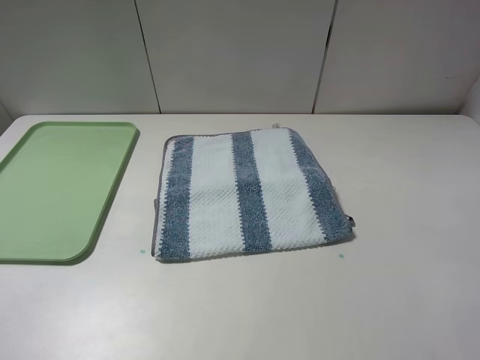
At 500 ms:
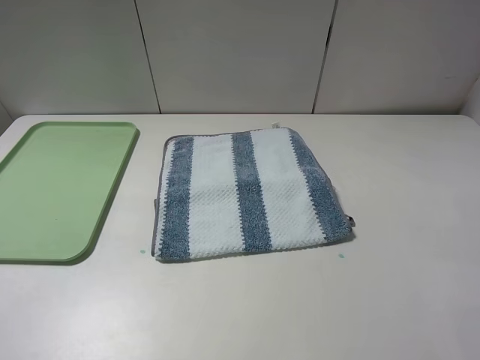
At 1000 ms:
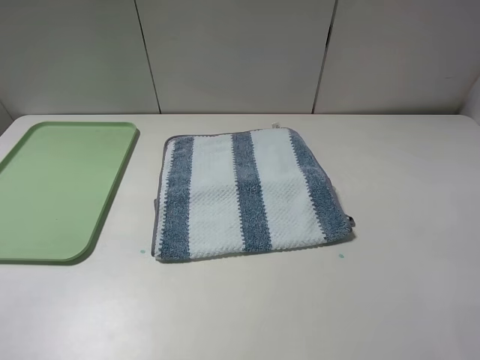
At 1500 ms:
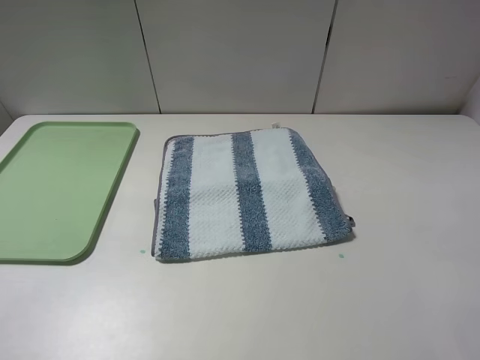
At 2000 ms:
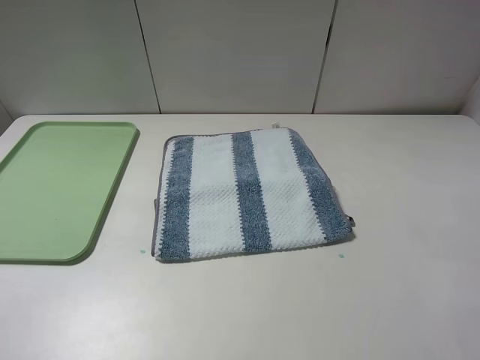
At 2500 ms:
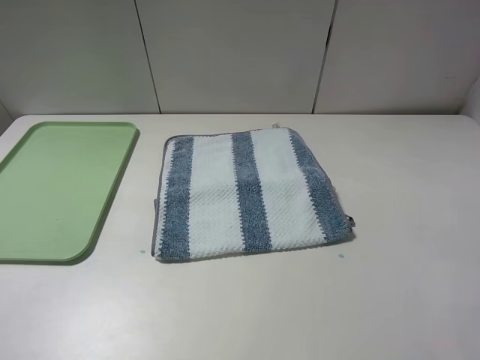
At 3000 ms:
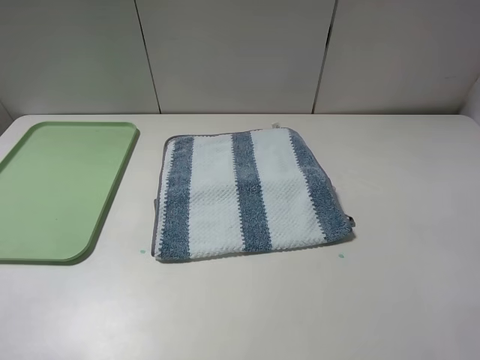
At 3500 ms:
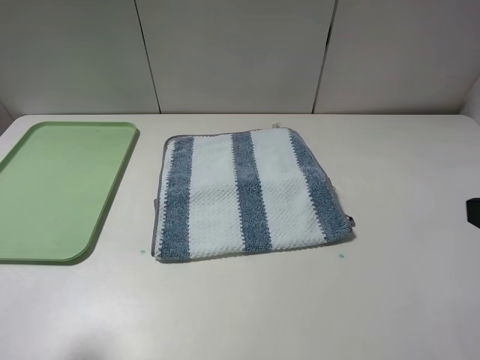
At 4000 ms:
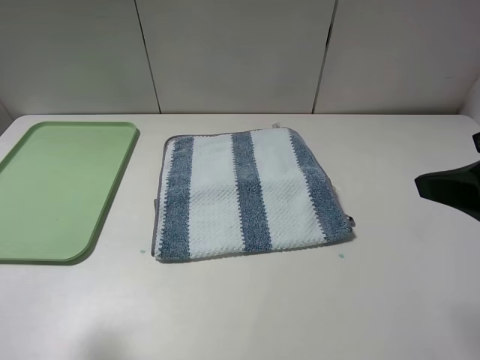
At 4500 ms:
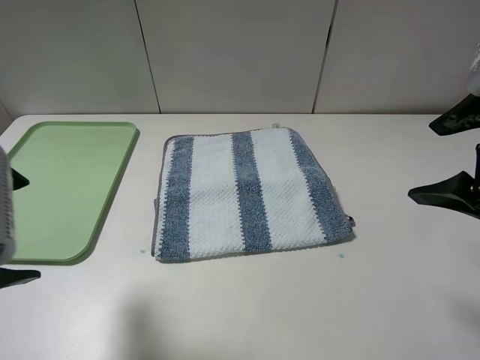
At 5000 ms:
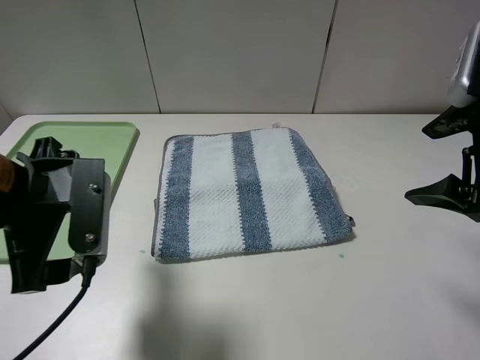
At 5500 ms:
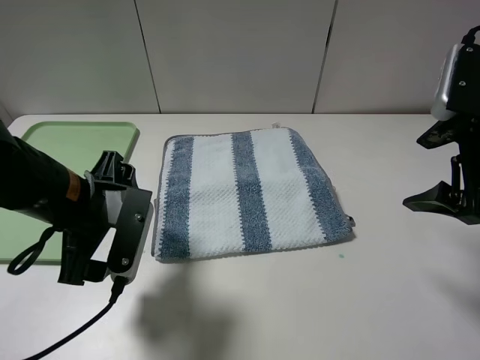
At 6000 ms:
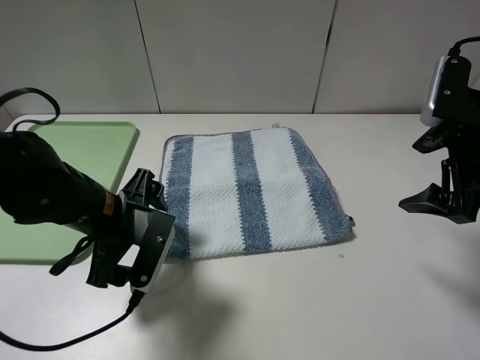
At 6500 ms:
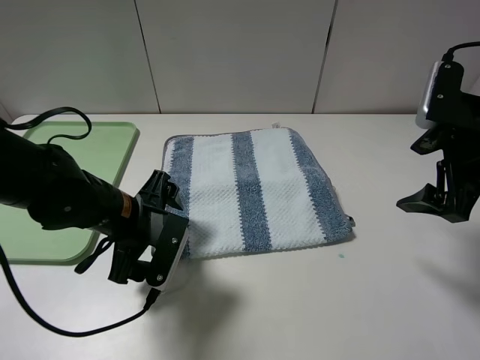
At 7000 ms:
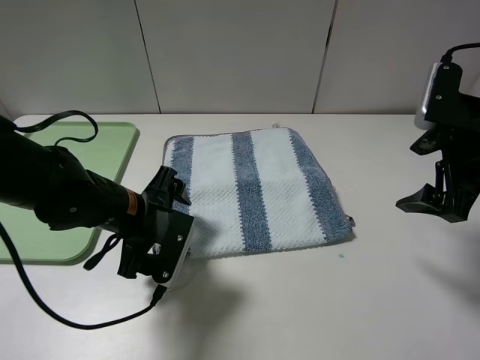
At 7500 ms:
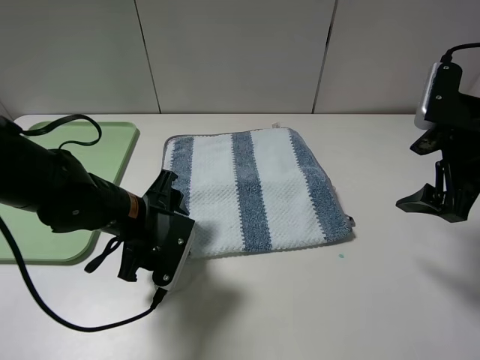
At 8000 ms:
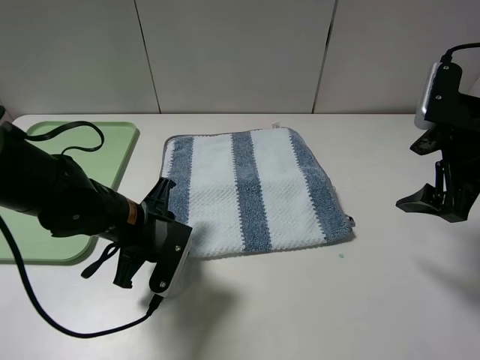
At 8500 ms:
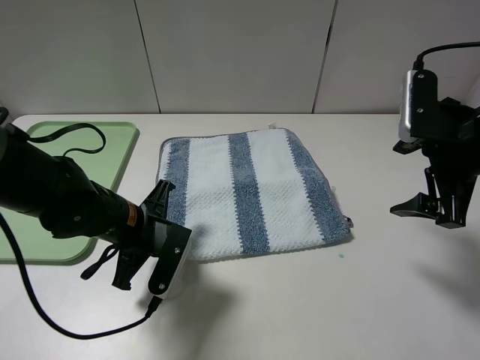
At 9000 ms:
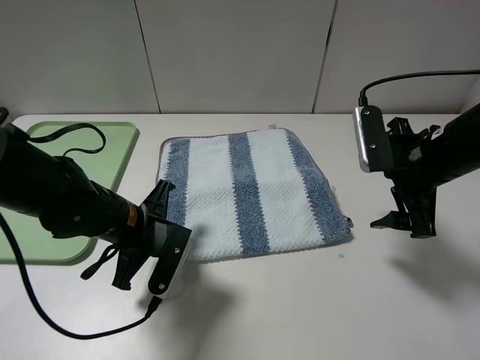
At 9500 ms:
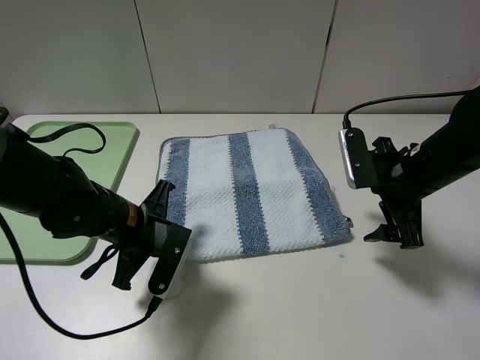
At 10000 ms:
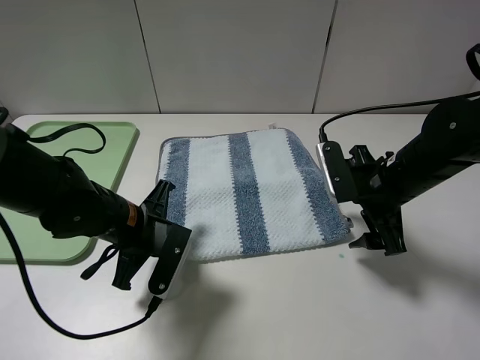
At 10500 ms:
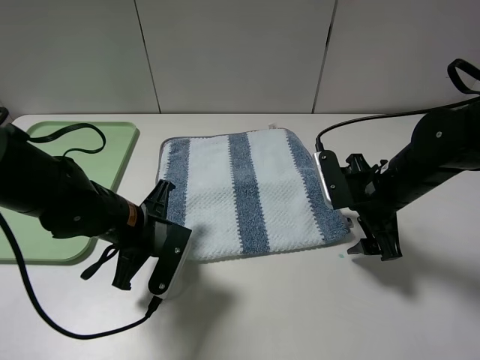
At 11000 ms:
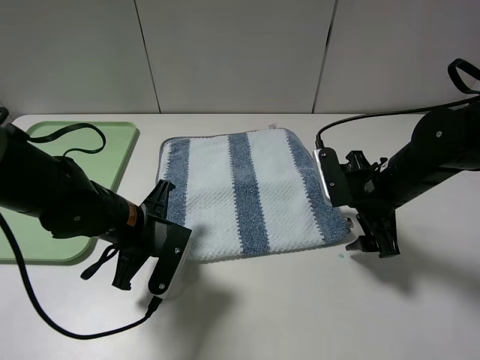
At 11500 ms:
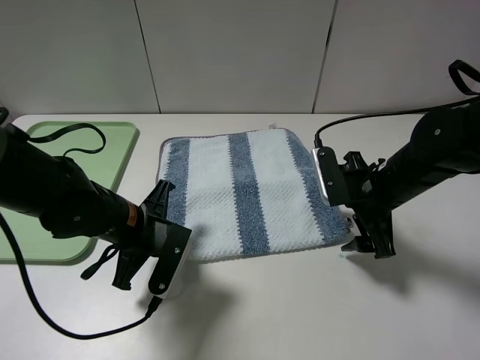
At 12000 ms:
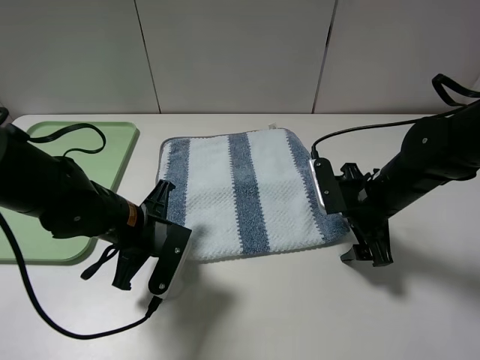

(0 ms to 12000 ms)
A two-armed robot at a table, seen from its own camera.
Step, 0 ms - 9500 ms: Grasp the blue white towel with the left gripper.
0 ms - 2000 ms: Neither gripper changes place.
2000 ms - 4000 ms: The left gripper moves forward, approximately 10 cm, while the right gripper moves forward, roughly 15 cm.
4000 ms - 6000 ms: The left gripper shifts roughly 25 cm downward, forward and to the right. The right gripper heads forward and downward, covering roughly 10 cm.
6000 ms - 8000 ms: The left gripper closes up.
8000 ms - 10000 ms: The right gripper heads downward and to the left, covering roughly 10 cm.
10000 ms - 12000 ms: The grippers move only a little.

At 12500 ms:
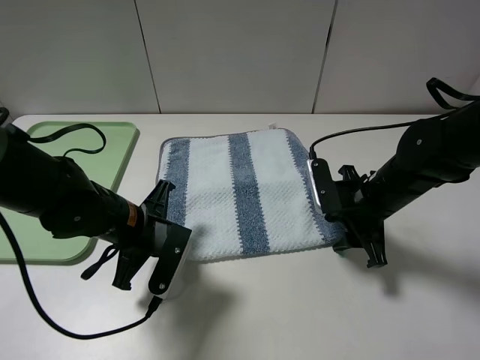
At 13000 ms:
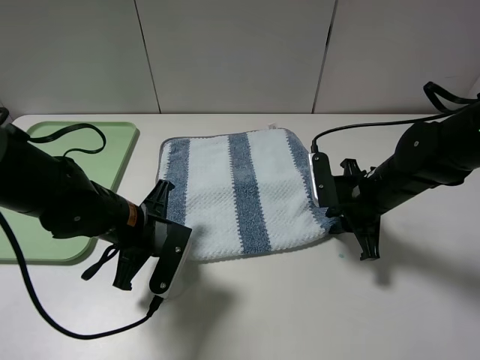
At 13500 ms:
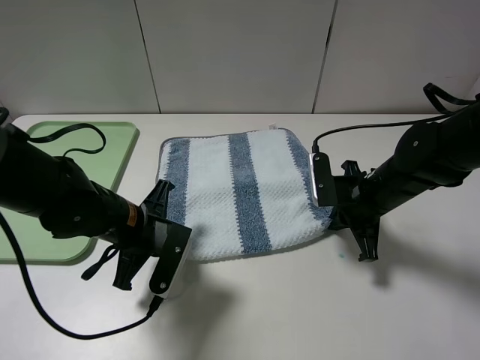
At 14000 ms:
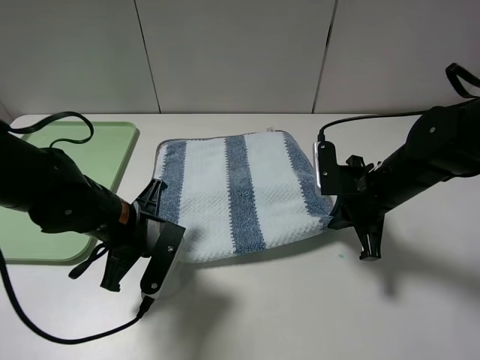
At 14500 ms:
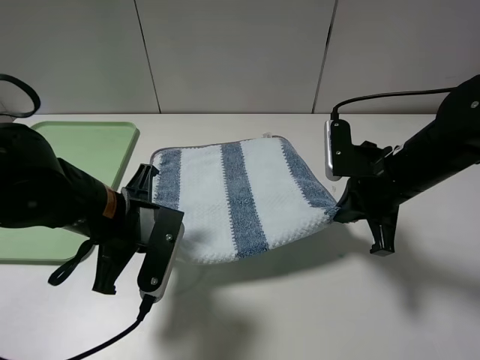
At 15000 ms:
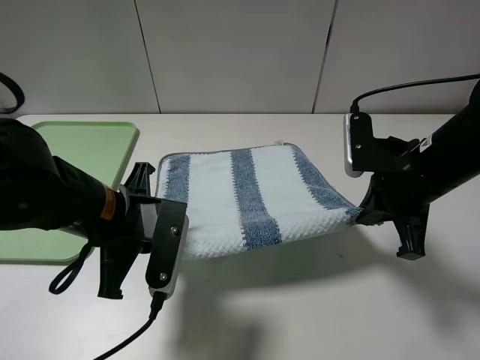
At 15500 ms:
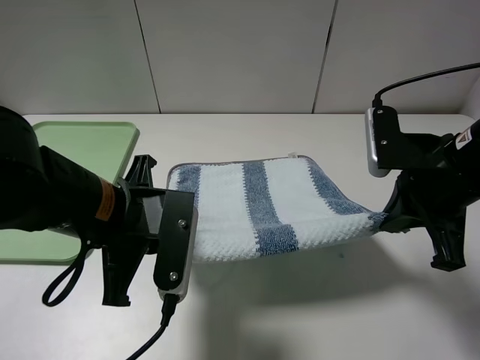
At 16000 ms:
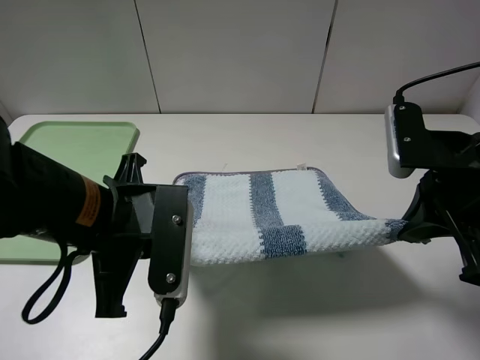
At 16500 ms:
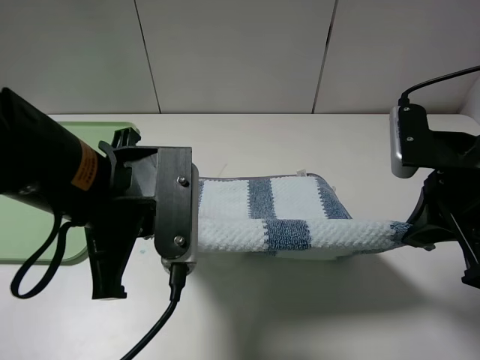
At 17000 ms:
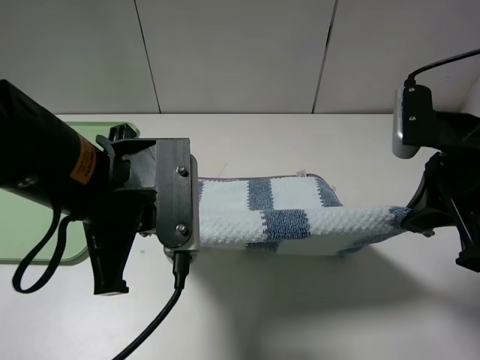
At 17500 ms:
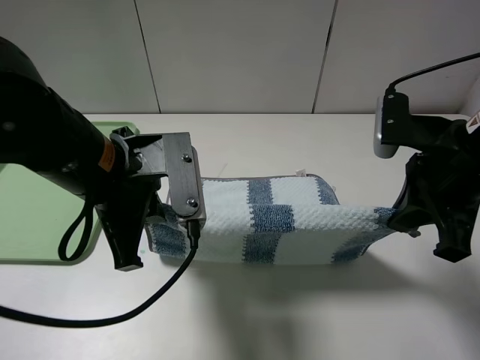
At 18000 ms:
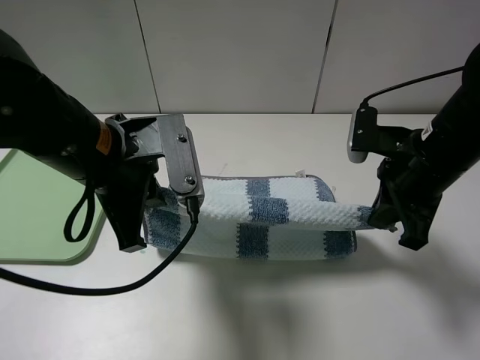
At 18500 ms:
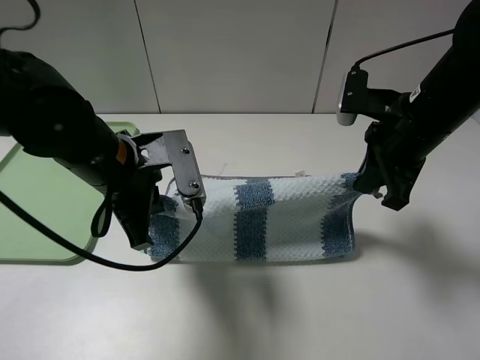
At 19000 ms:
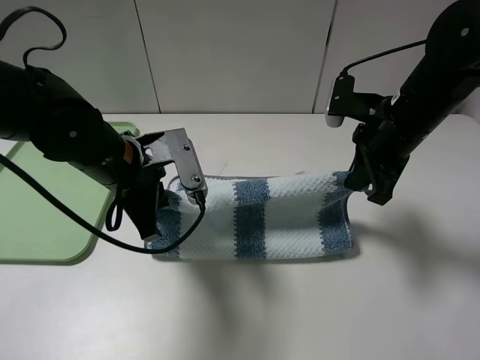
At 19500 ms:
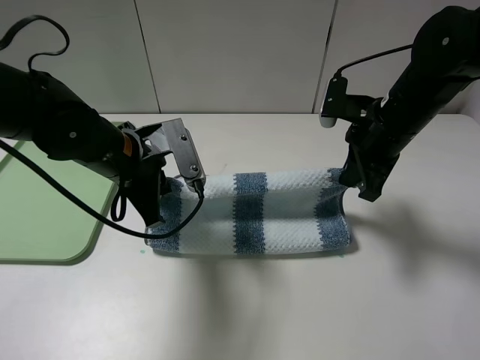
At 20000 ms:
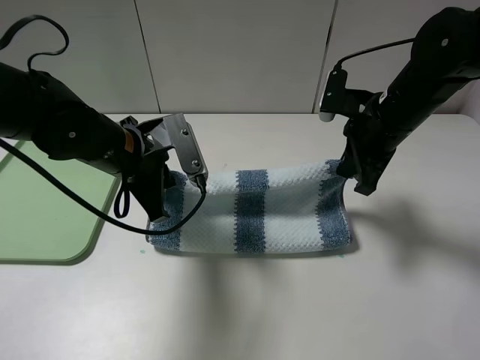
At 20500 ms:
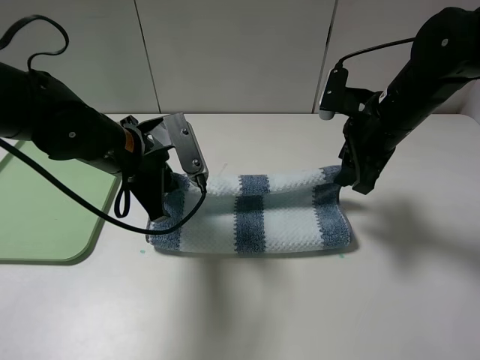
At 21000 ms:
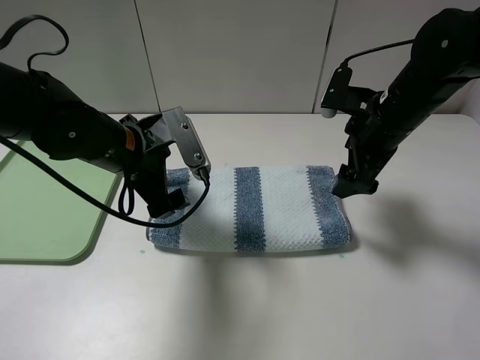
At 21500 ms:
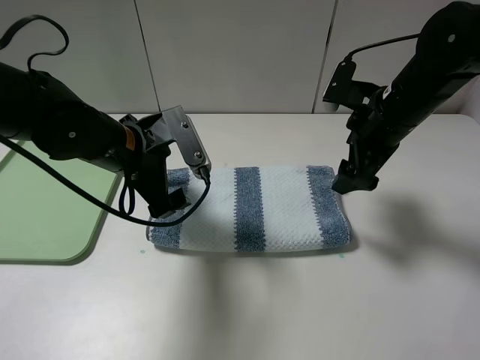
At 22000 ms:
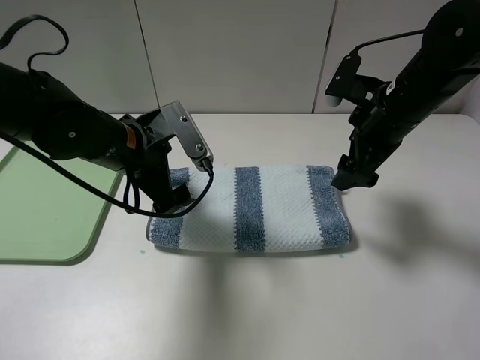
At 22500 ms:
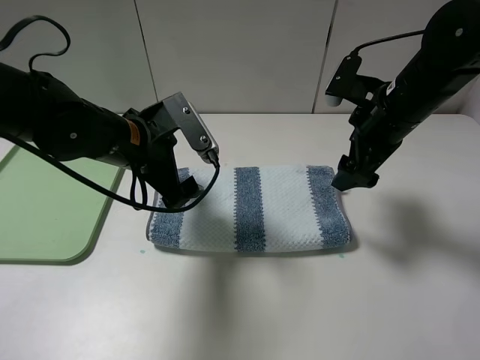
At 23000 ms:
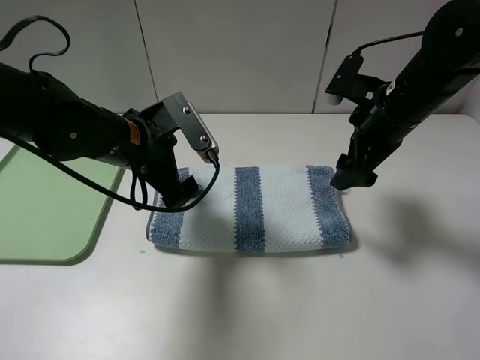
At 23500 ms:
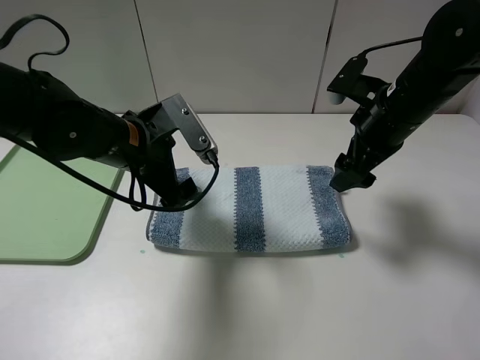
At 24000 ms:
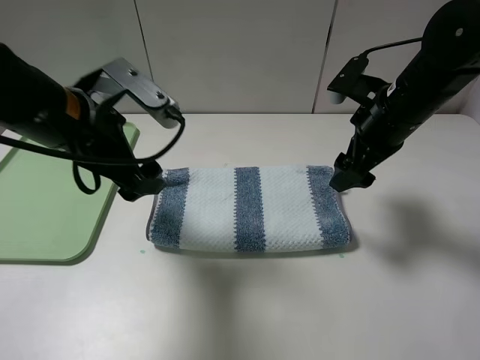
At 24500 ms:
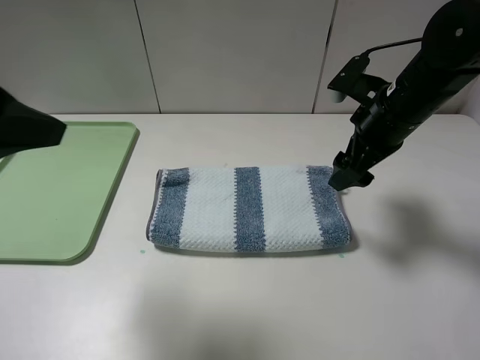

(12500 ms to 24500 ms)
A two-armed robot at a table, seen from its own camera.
Step, 14000 ms - 21000 ms: Fold the blue white towel upwards with the left gripper.
12500 ms - 14500 ms: The two grippers go approximately 5 cm upward. The right gripper closes.
14500 ms - 16500 ms: The right gripper travels upward and backward by some 10 cm; the left gripper heads upward, covering approximately 10 cm.
16500 ms - 18500 ms: The left gripper shifts roughly 10 cm forward and downward; the right gripper moves forward, approximately 10 cm.
18500 ms - 20500 ms: The right gripper opens up, while the left gripper opens.
20500 ms - 22500 ms: The left gripper opens up.
22500 ms - 24500 ms: The left gripper goes roughly 25 cm upward, backward and to the left.

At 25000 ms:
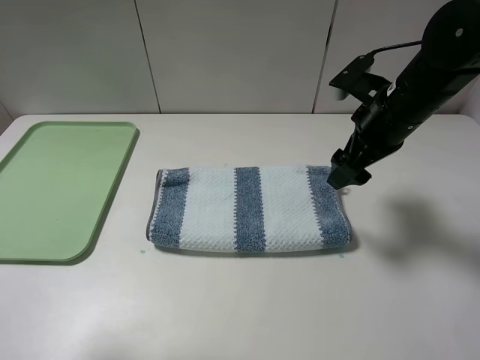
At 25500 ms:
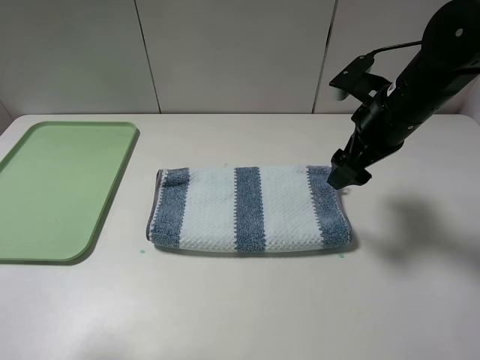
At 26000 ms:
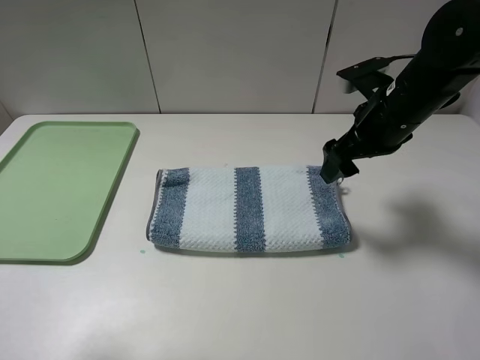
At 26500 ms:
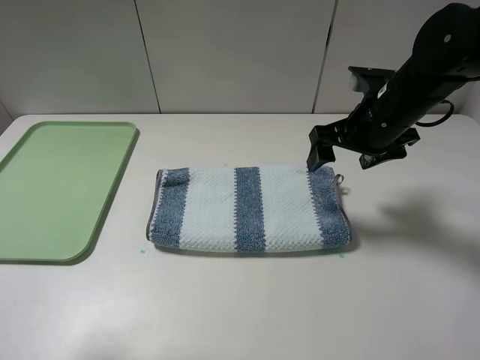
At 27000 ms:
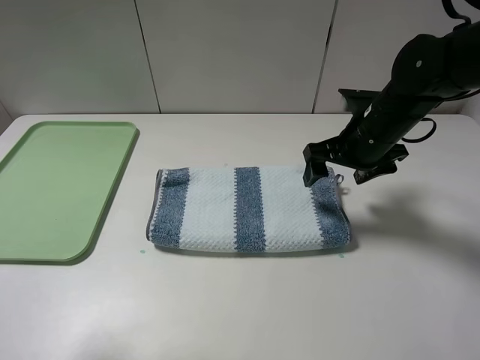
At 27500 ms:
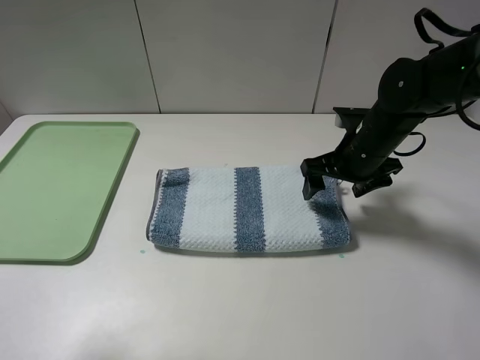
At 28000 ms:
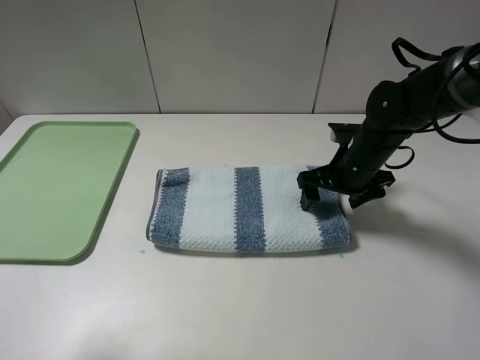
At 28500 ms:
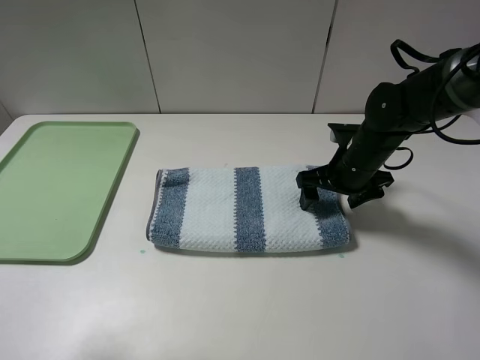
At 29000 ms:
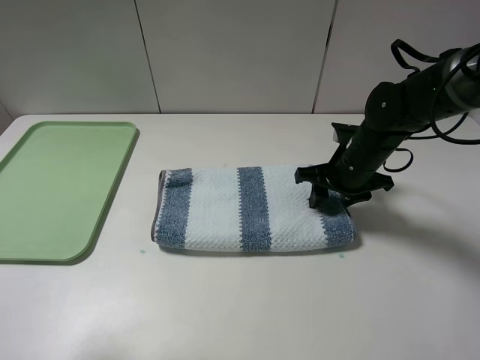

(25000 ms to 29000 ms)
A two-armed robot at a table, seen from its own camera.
27000 ms - 29000 ms: The right gripper is displaced downward by roughly 5 cm, and closes its fingers.
